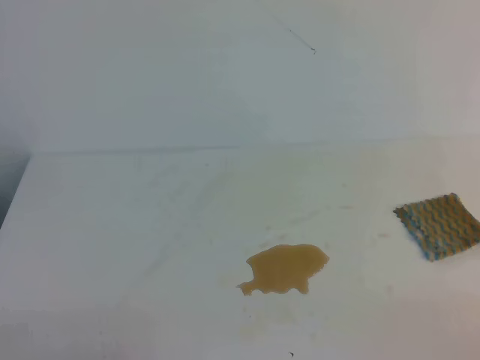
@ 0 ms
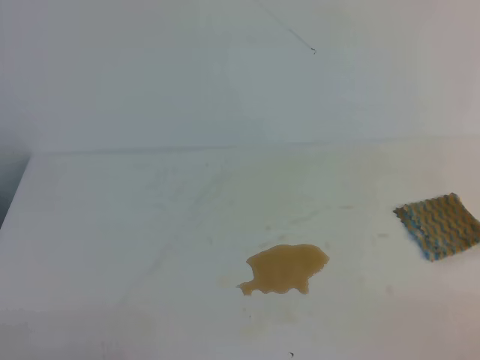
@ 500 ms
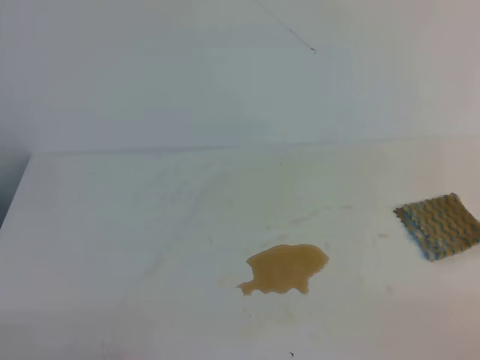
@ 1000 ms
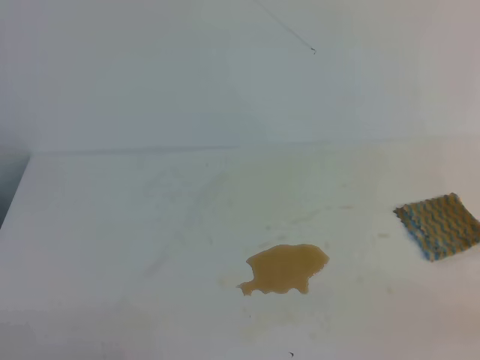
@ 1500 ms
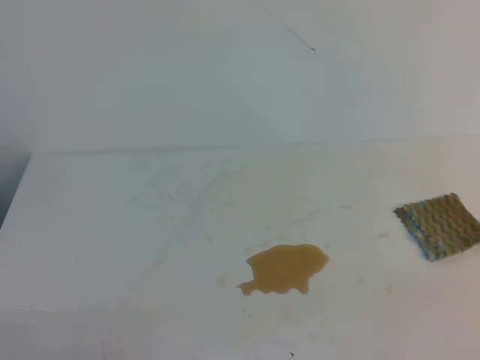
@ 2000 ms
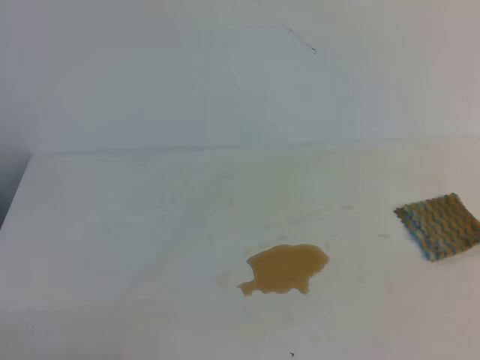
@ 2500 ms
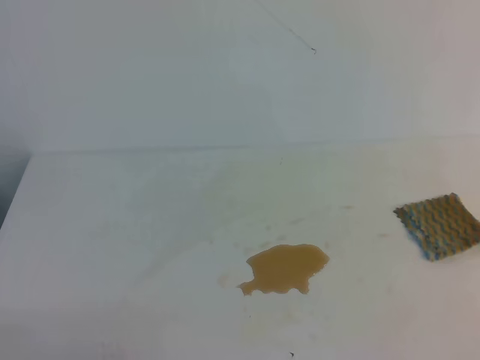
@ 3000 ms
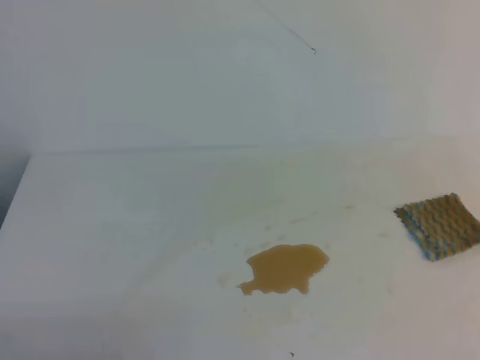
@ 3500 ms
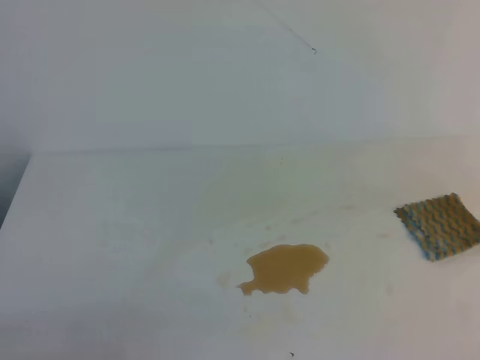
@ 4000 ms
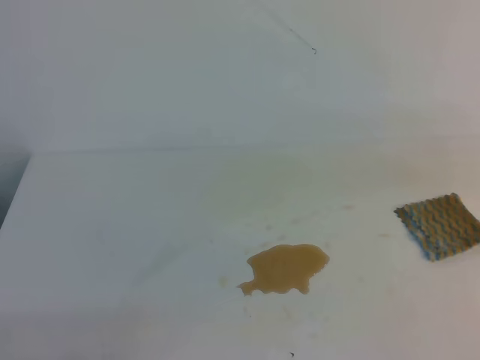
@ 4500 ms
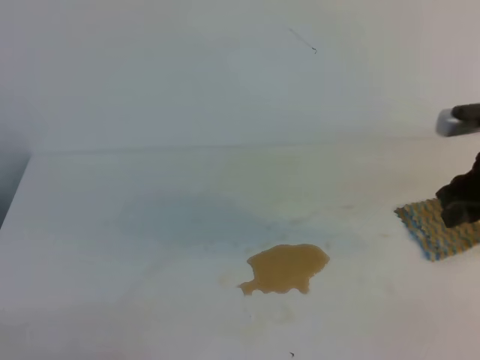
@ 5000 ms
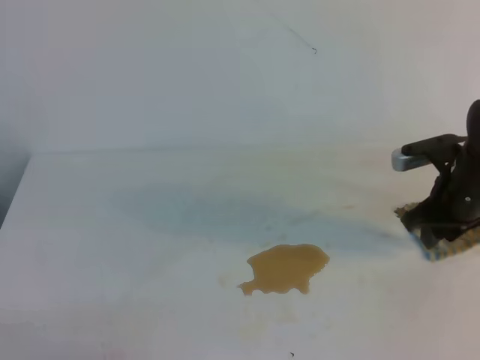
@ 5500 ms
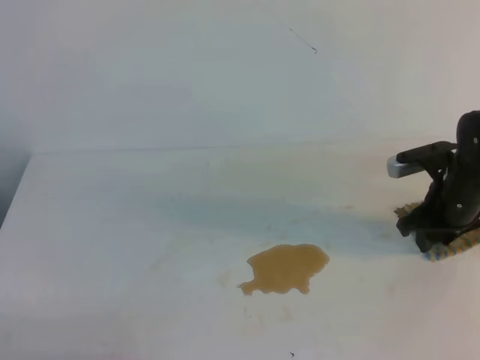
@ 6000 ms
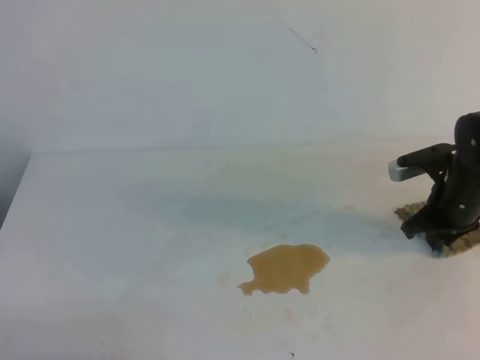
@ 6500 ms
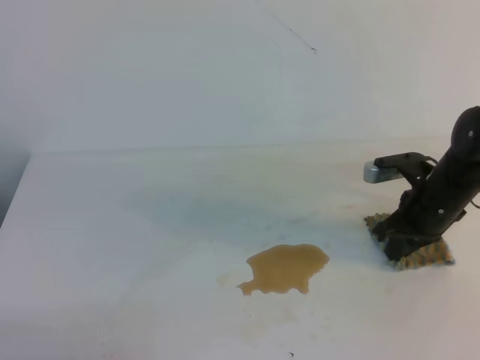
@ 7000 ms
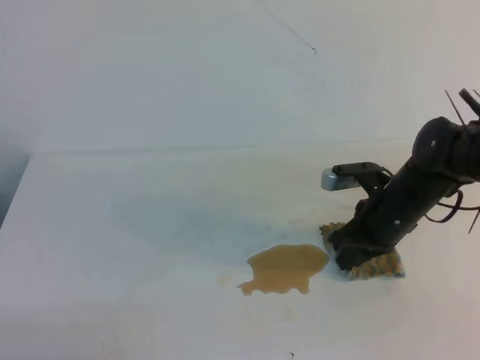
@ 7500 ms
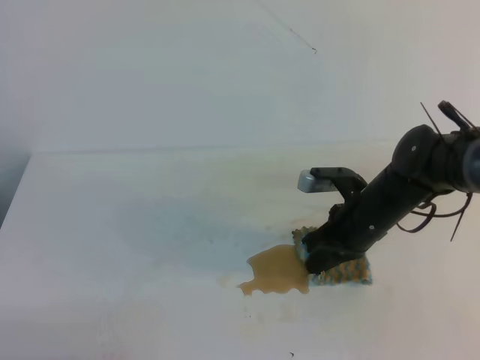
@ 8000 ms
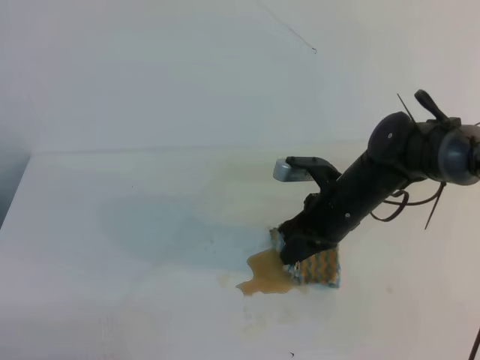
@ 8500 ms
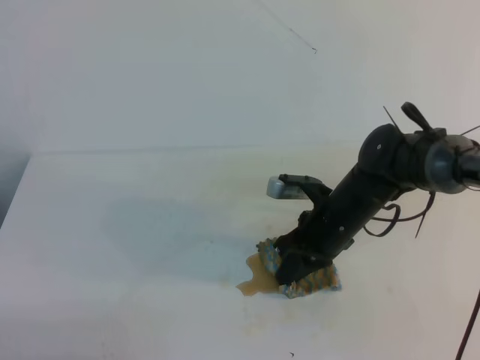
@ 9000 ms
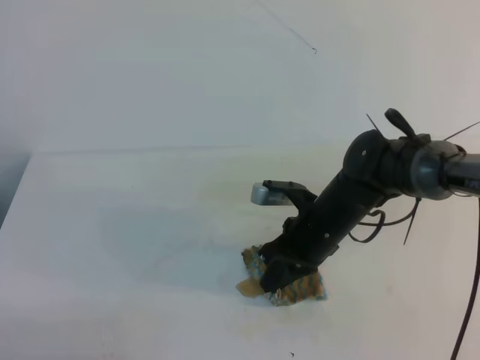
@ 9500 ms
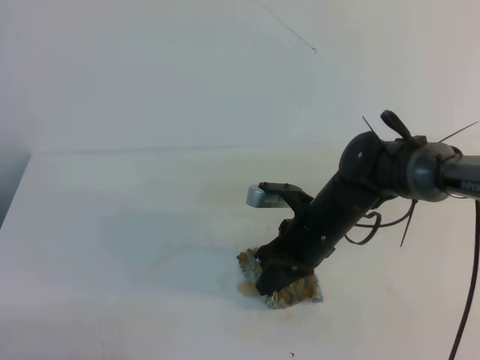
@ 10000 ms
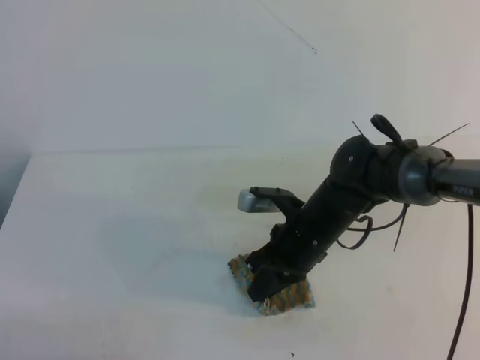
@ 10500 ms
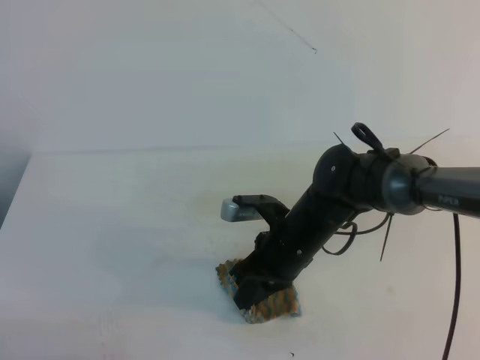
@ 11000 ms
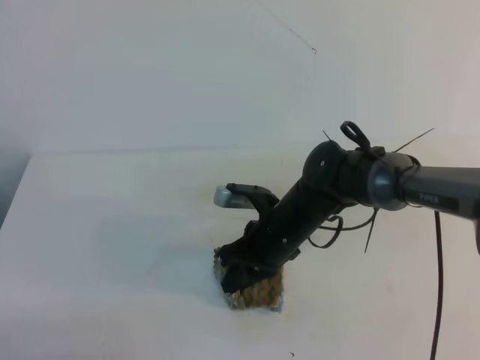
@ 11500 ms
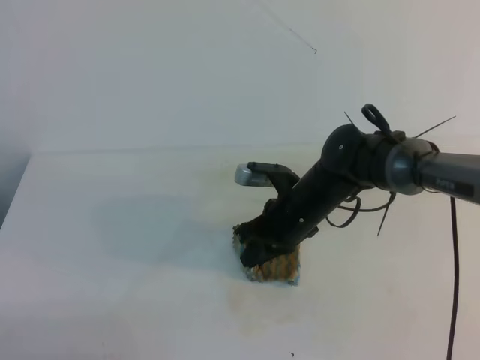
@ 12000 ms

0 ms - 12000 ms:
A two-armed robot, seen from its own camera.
4000 ms - 6000 ms: The right gripper is displaced forward and downward by about 25 cm, and opens up.
6000 ms - 8000 ms: The right gripper moves to the left, roughly 10 cm, and closes.
8000 ms - 10000 ms: The right gripper heads to the left, covering about 5 cm.
10000 ms - 12000 ms: The grippers make only small movements.

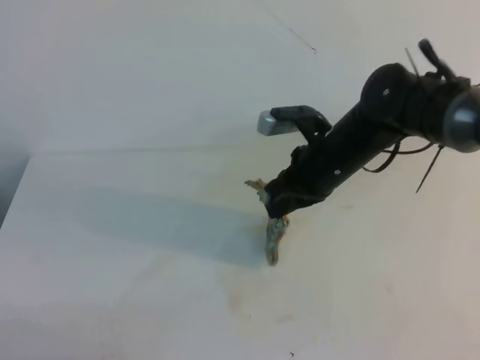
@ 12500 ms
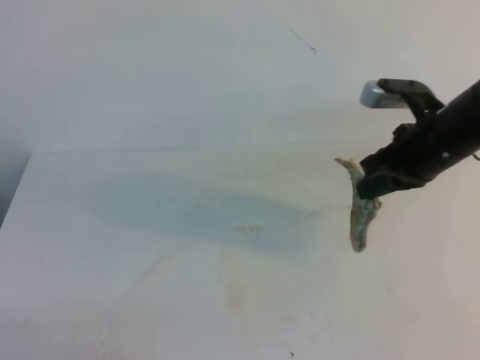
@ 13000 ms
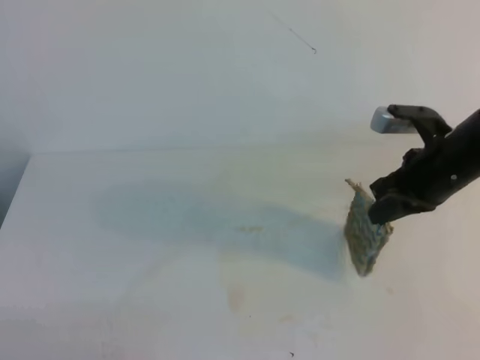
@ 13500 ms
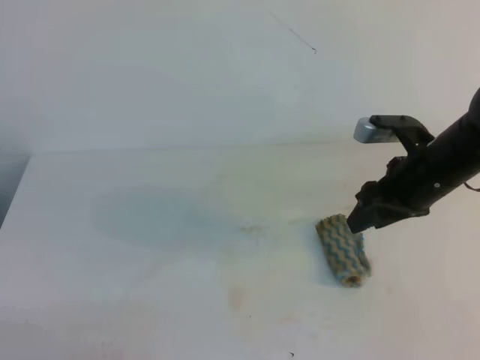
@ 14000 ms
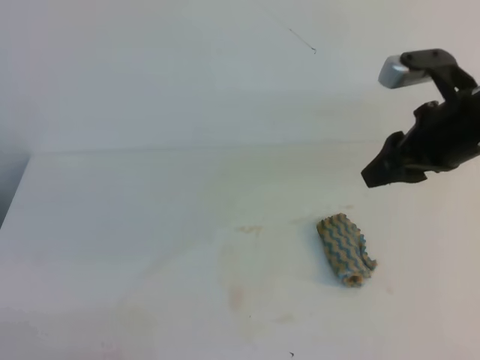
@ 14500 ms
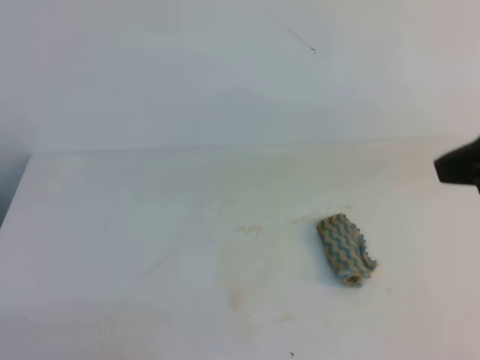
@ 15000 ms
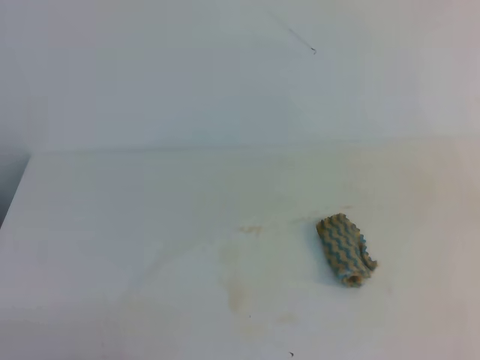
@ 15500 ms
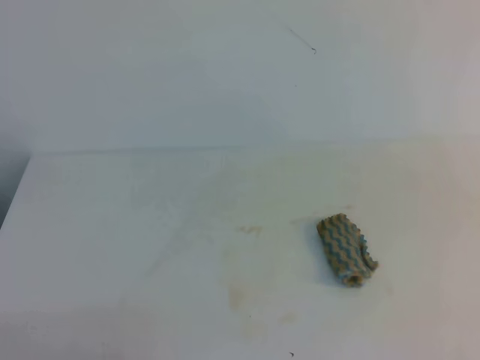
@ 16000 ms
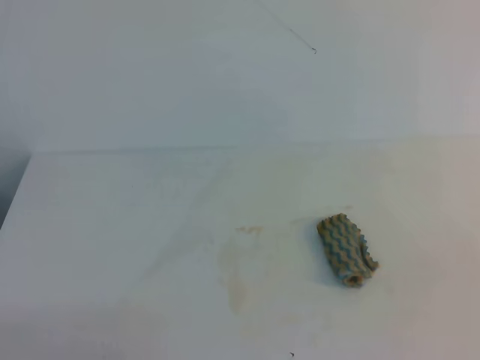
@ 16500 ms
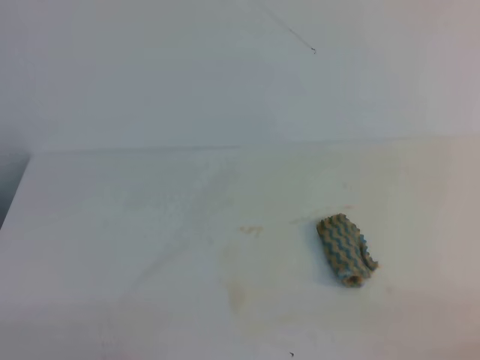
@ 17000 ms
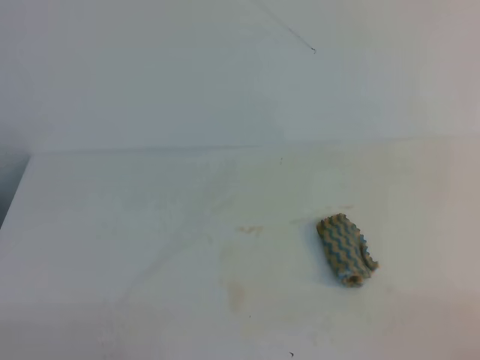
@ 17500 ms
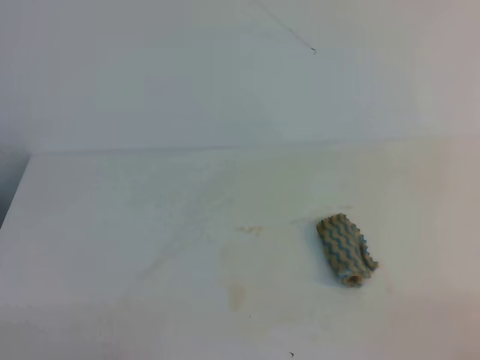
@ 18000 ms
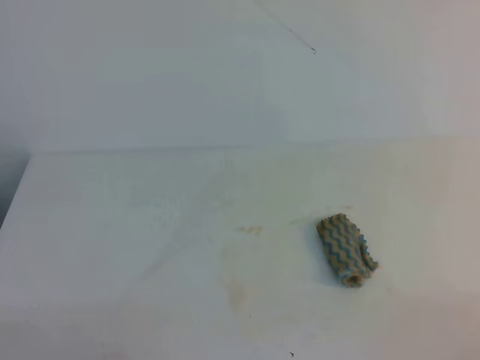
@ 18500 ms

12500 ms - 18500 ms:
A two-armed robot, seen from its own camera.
12500 ms - 14500 ms: The right gripper travels to the right, upward and backward by some 15 cm, and opens.
14500 ms - 16500 ms: The right gripper travels backward by about 30 cm, and closes up.
